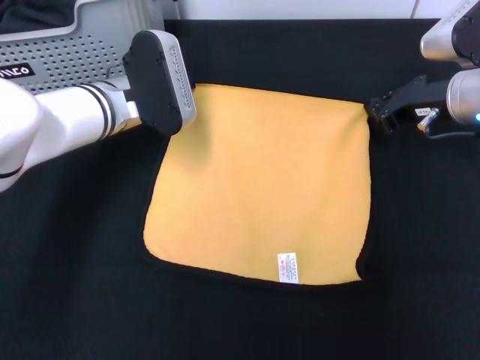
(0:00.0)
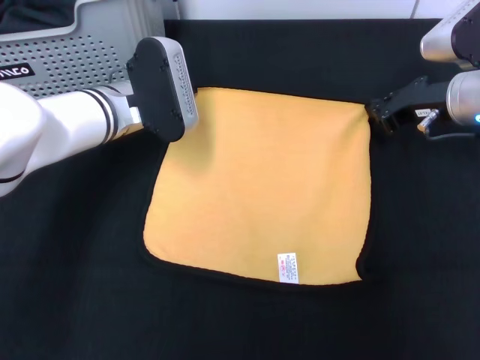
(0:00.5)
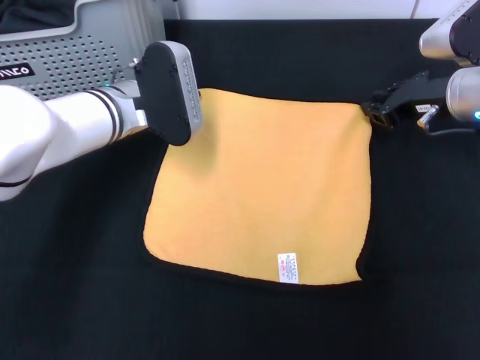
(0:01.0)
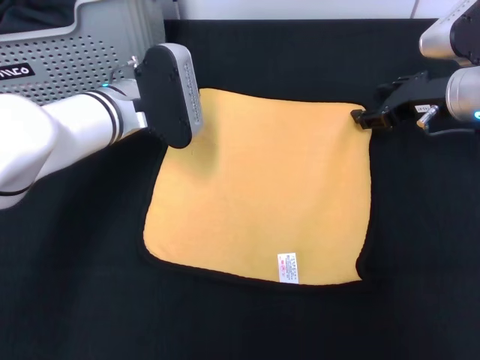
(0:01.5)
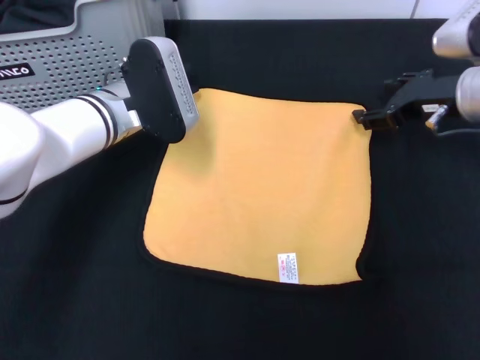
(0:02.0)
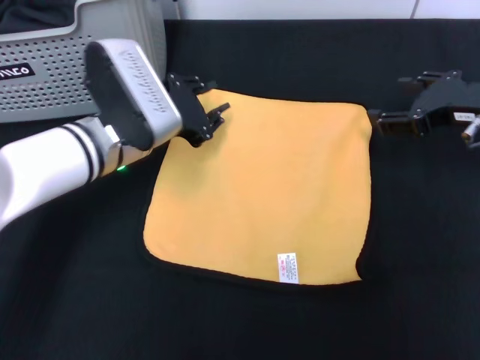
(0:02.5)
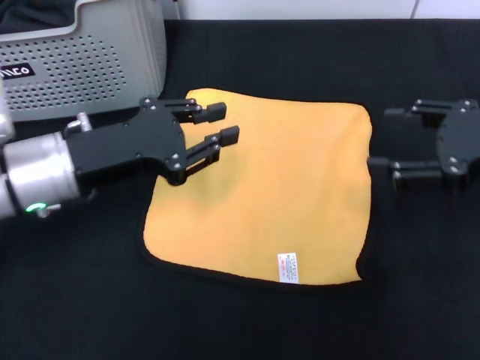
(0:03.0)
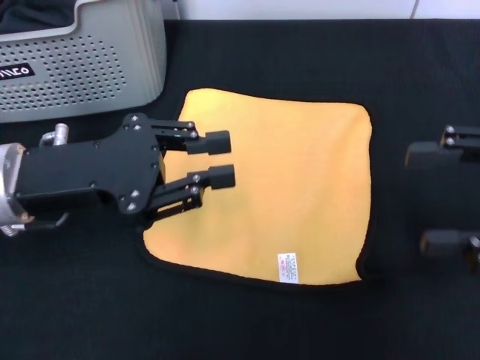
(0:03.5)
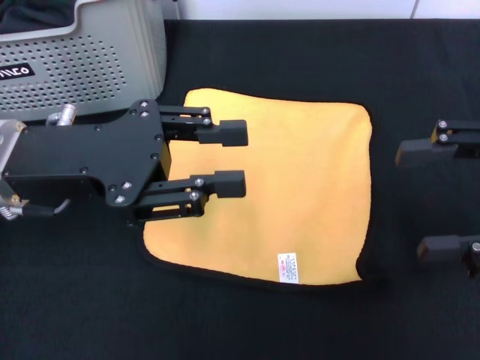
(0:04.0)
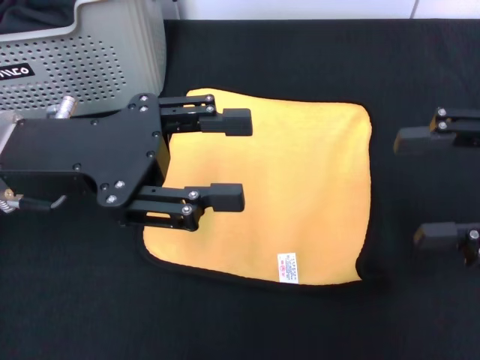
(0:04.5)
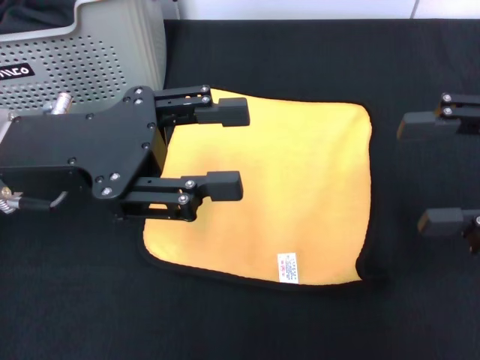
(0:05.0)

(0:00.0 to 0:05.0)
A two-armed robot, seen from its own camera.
Task of the whole recording: pick up the towel from the storage box and lay it flat on the black tablecloth.
0:00.0 - 0:02.5: Both grippers move backward, roughly 5 cm. The left gripper opens; the right gripper opens its fingers.
0:02.5 - 0:05.0: The right gripper shifts approximately 15 cm backward and upward. Meanwhile the left gripper is displaced upward, backward and to the left by some 15 cm, and opens up.
